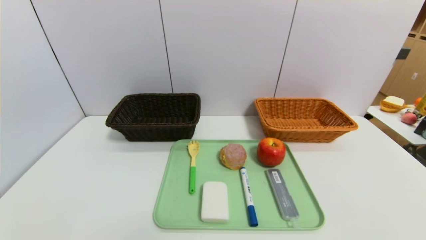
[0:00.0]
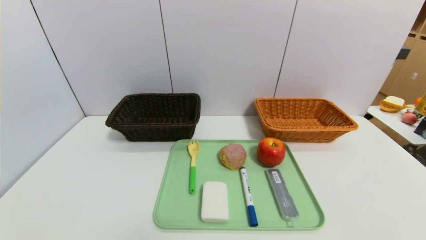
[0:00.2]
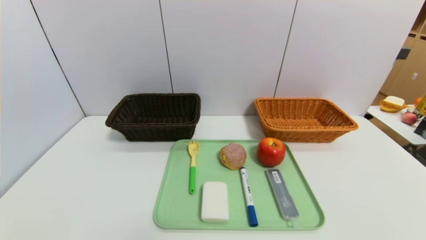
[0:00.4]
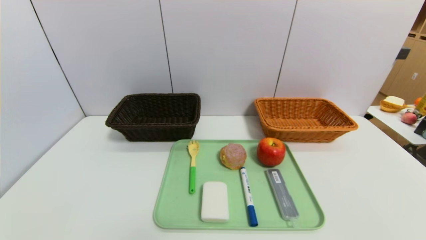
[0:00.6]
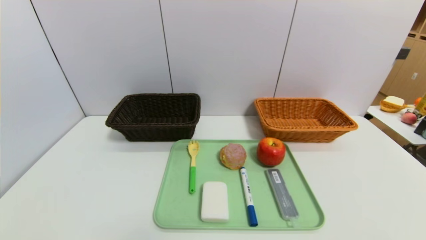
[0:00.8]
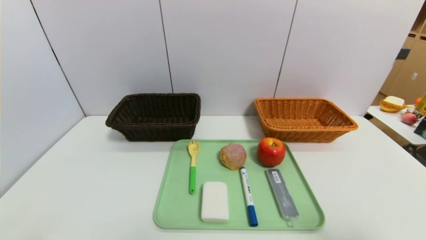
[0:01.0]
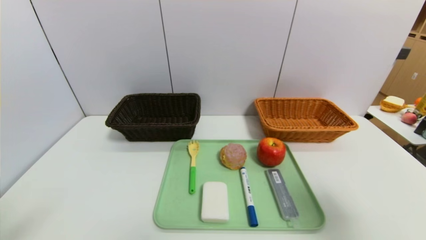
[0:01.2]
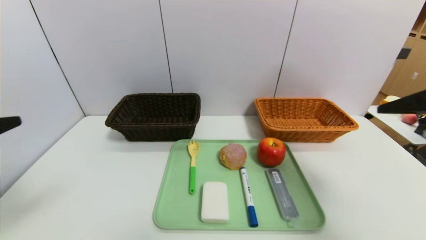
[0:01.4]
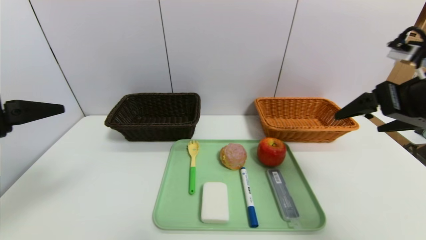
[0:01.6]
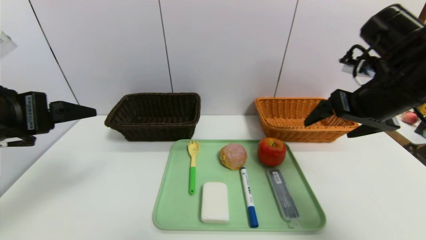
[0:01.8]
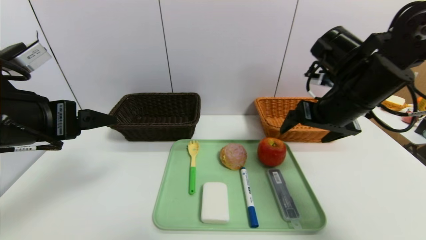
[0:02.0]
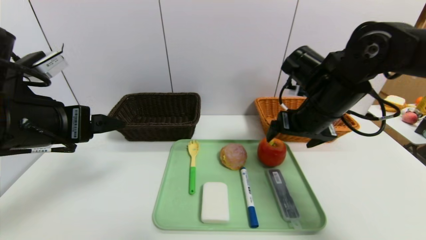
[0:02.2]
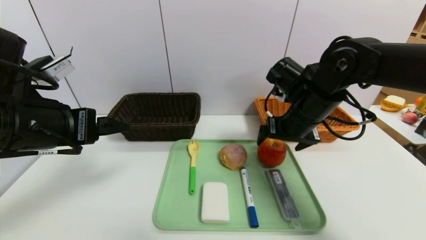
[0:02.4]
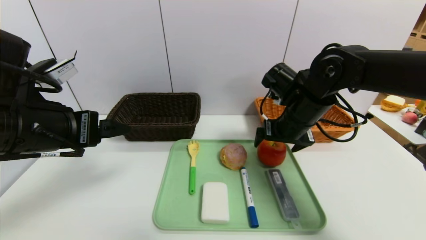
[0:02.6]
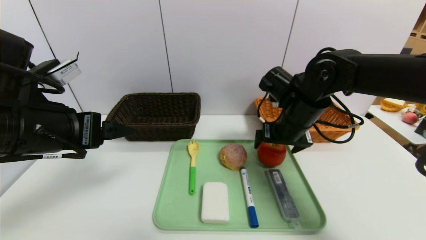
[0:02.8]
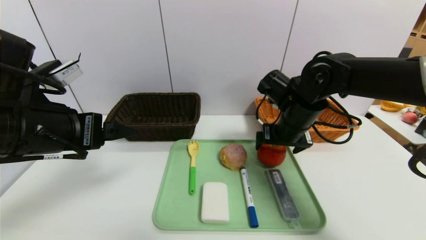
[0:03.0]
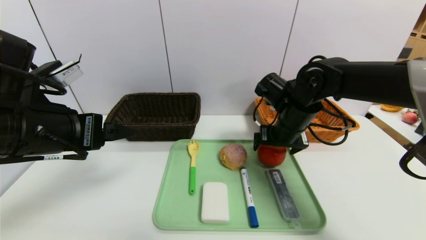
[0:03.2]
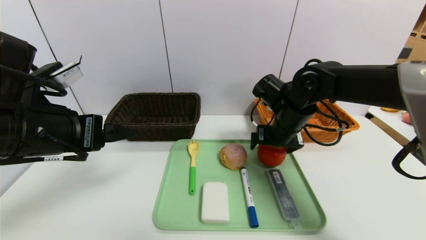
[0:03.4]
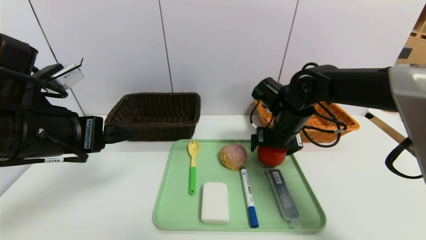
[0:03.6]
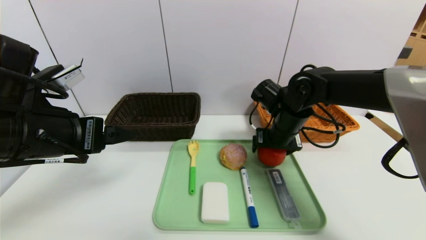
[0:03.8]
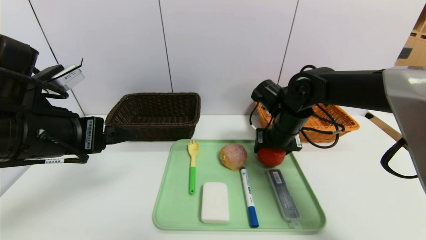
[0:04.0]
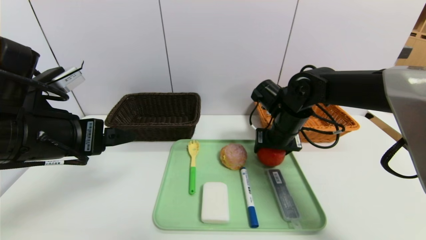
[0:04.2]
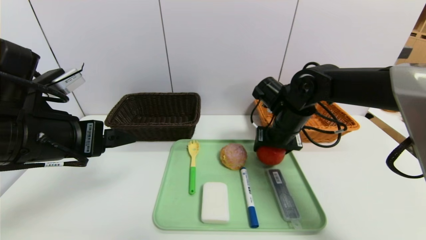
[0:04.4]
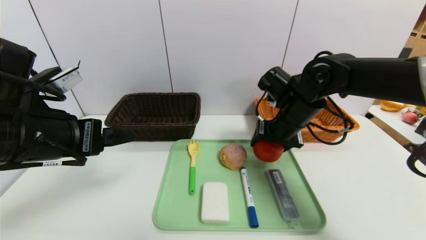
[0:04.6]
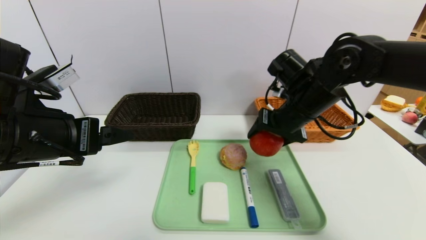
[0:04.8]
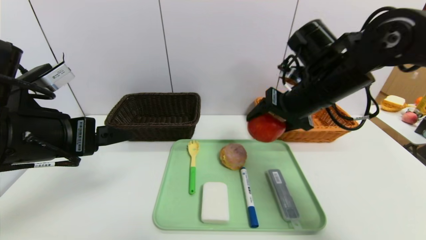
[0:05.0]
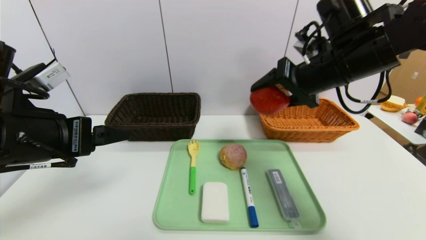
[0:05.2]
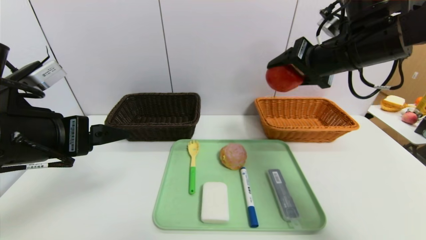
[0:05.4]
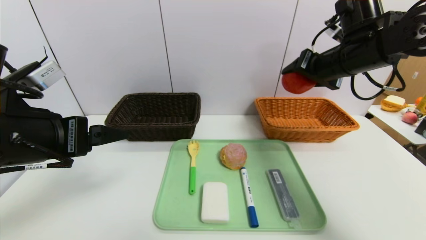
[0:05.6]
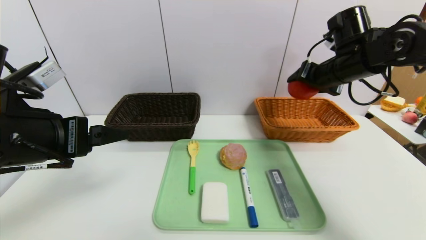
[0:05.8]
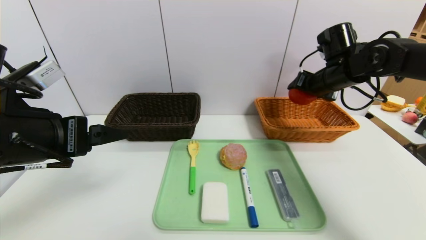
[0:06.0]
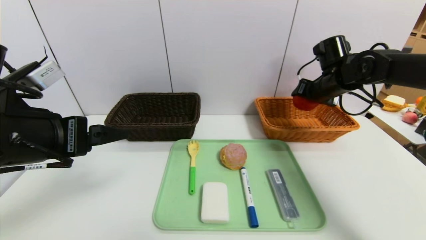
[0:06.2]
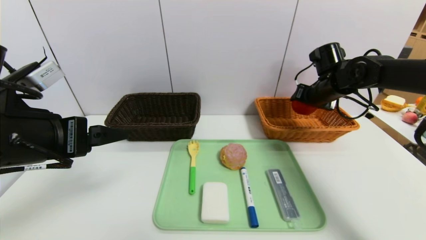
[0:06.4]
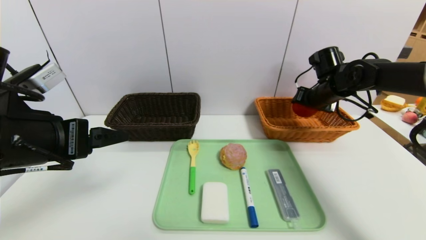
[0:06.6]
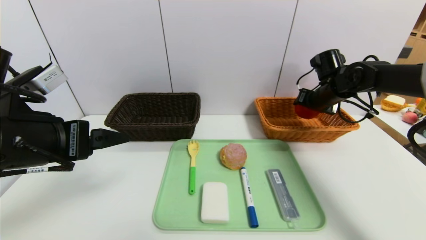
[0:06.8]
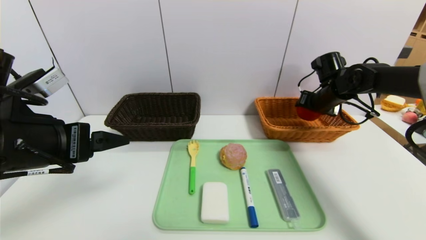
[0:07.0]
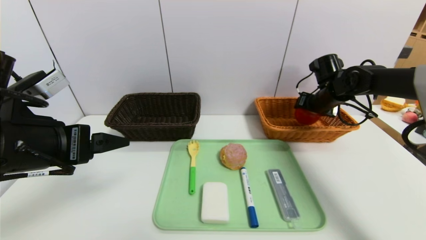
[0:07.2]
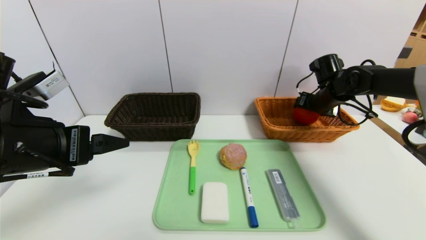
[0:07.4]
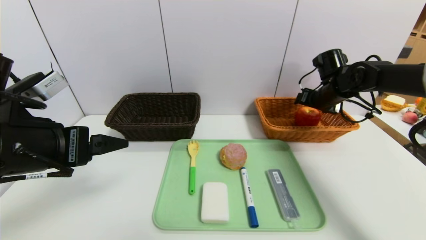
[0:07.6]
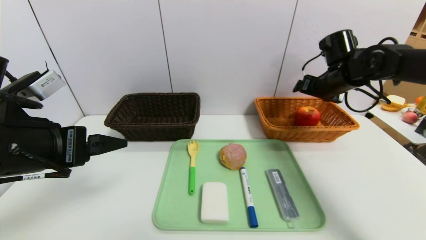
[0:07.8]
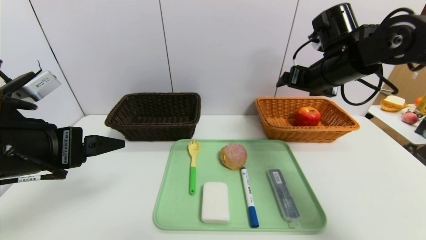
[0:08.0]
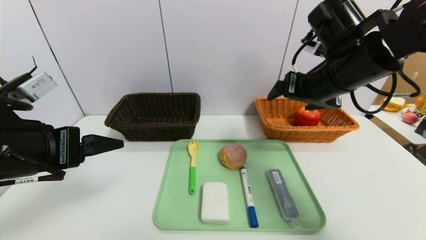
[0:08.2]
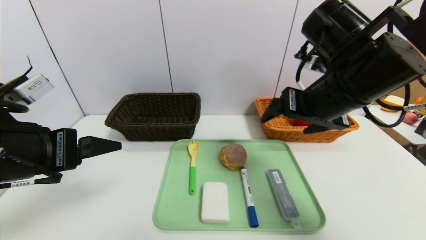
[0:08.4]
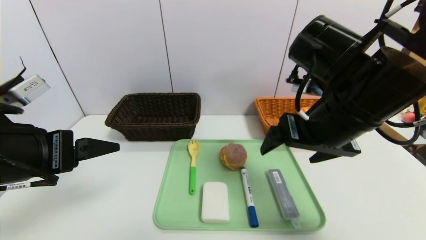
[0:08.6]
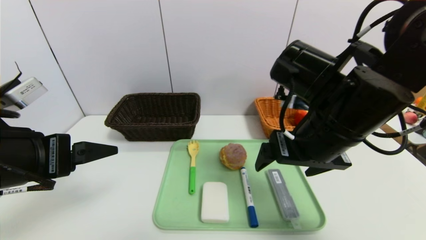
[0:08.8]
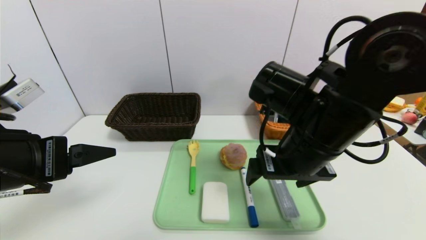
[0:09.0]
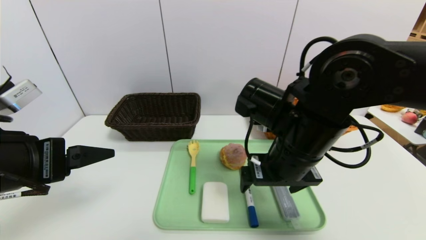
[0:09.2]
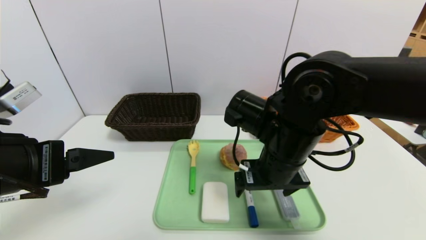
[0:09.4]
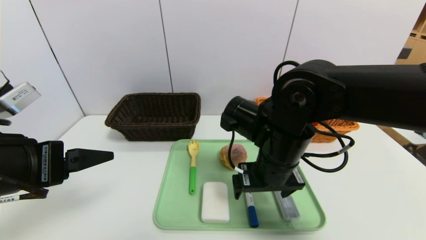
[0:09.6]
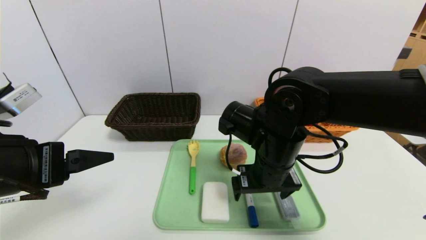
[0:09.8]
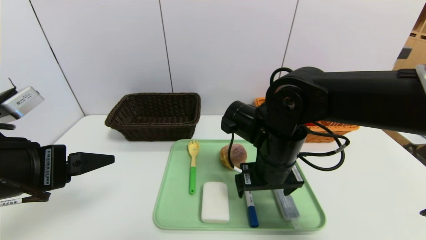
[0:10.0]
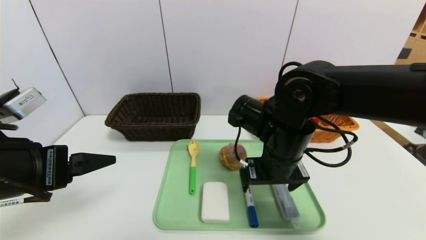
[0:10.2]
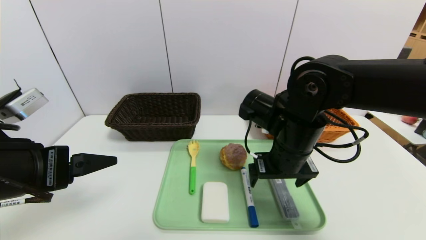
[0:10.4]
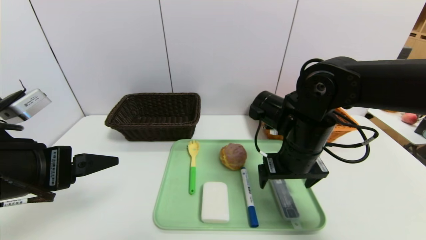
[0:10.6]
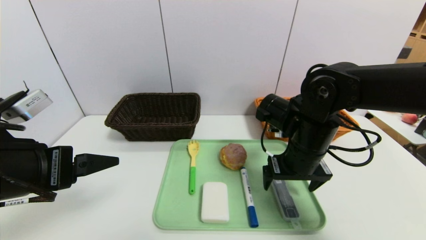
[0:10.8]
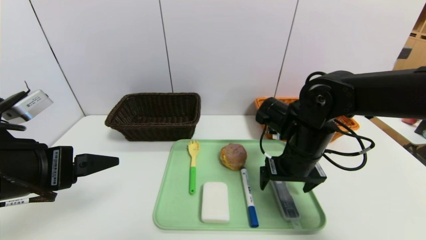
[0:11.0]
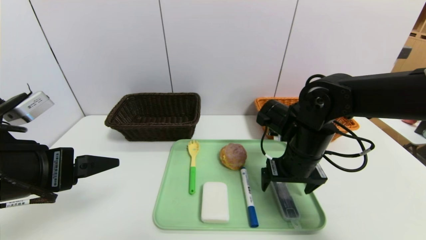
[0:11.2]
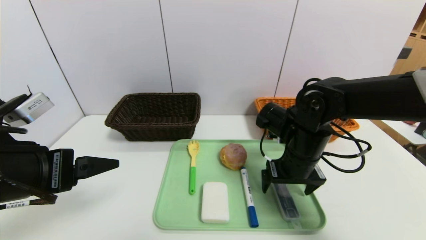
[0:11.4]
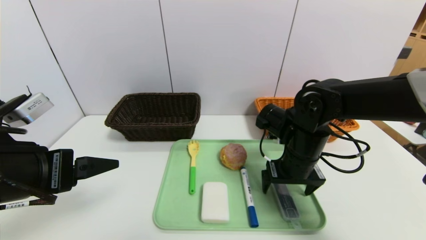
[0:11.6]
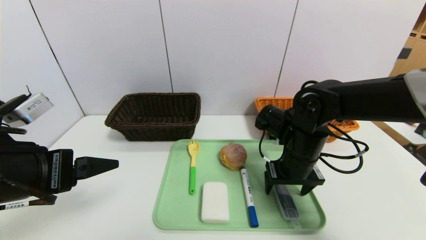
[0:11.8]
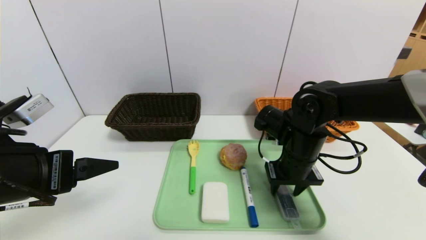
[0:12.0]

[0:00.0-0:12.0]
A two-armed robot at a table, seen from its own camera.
Task of the whole recording: place the food in the right basket with the right gripper, and place the non food items in the left basket with the left gripper.
Step, 0:00.0 to 0:08.0: Grasp the apple and put it in the right basket.
0:00.0 to 0:01.6: Both grippers travel together upward and forward, roughly 30 cm.
0:01.6 to 0:03.0: The left gripper travels forward and to the right by approximately 10 cm, while the right gripper shifts some 20 cm to the left, forward and downward.
0:03.0 to 0:04.4: The right gripper closes its fingers.
0:04.4 to 0:06.0: The right gripper goes approximately 15 cm to the right and upward.
0:06.0 to 0:07.6: The right gripper travels downward by some 5 cm.
0:07.6 to 0:09.0: The right gripper heads backward and to the left, covering about 30 cm.
0:09.0 to 0:10.4: The right gripper travels downward by approximately 5 cm.
0:10.4 to 0:12.0: The right gripper shifts by some 5 cm, and closes its fingers.

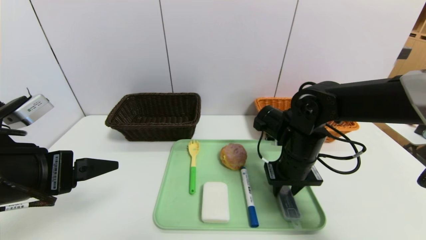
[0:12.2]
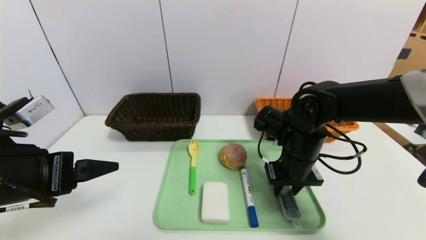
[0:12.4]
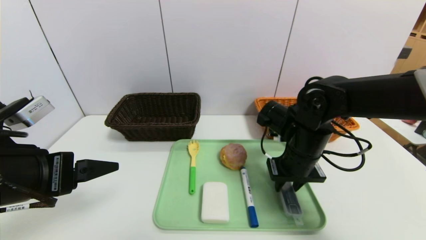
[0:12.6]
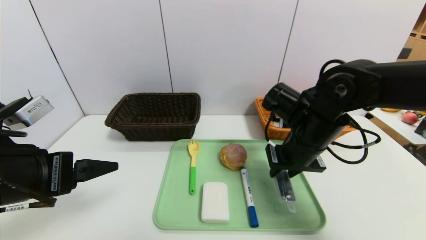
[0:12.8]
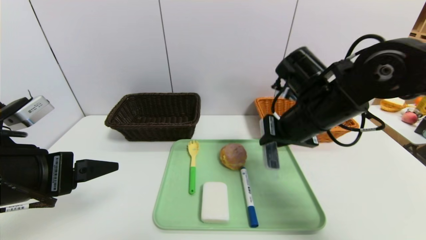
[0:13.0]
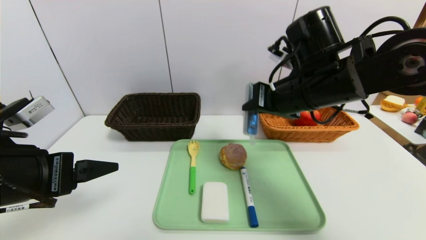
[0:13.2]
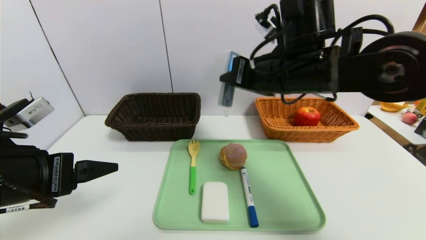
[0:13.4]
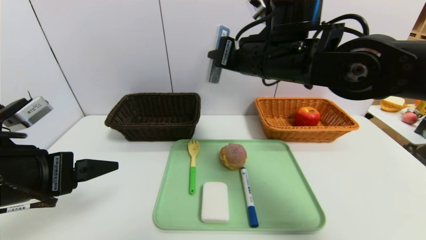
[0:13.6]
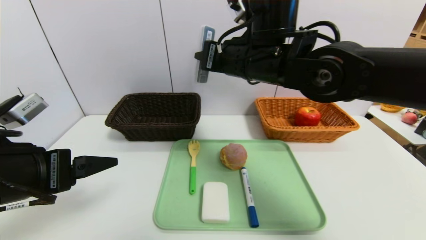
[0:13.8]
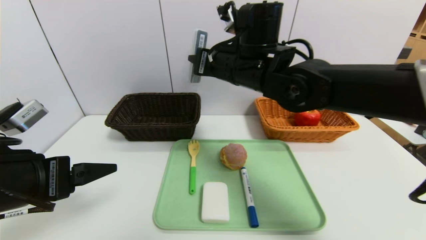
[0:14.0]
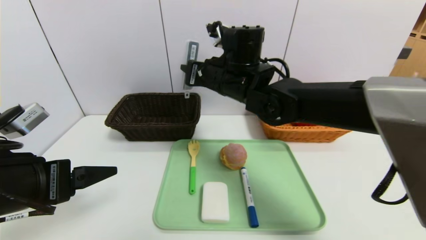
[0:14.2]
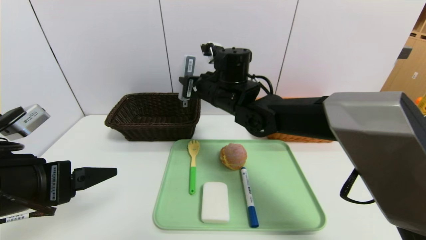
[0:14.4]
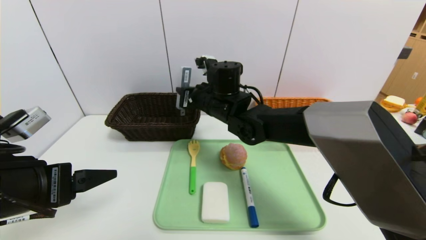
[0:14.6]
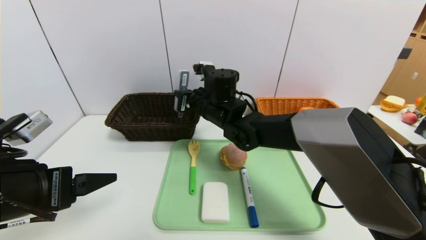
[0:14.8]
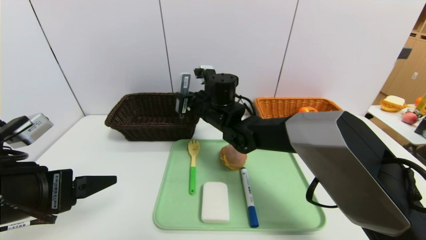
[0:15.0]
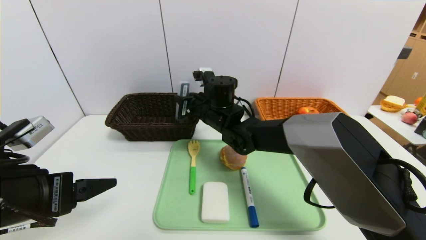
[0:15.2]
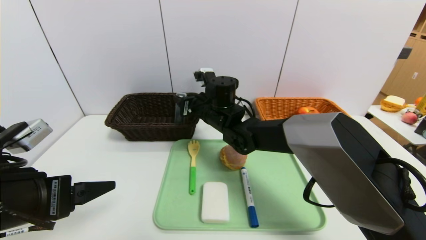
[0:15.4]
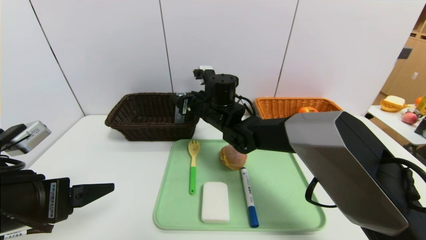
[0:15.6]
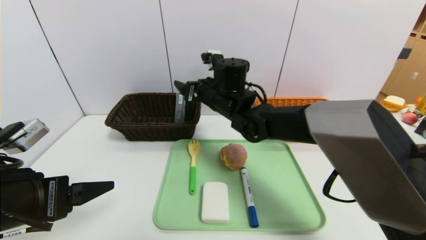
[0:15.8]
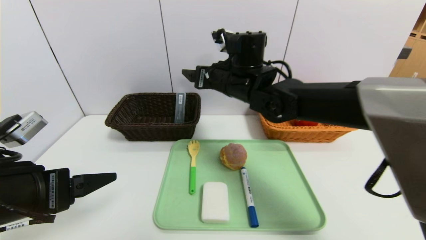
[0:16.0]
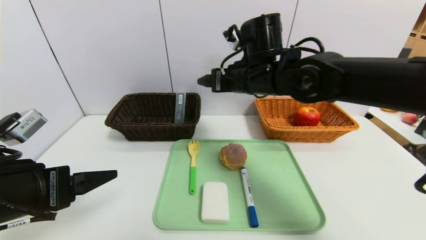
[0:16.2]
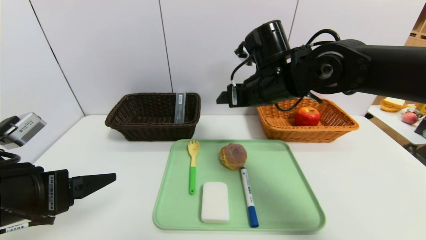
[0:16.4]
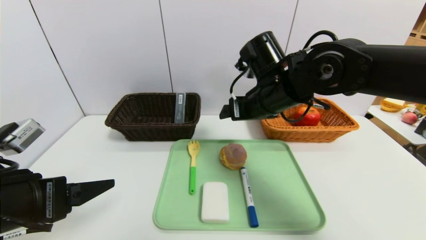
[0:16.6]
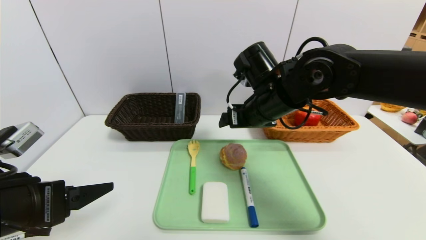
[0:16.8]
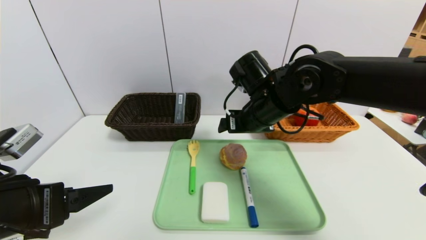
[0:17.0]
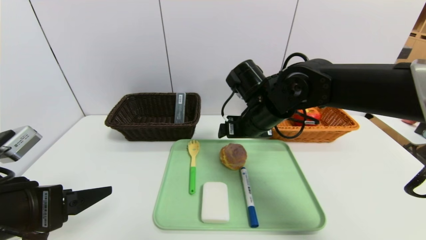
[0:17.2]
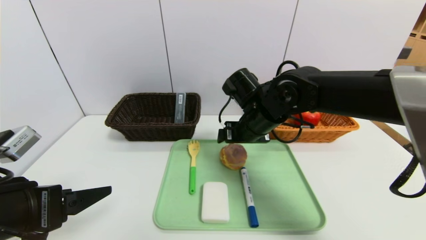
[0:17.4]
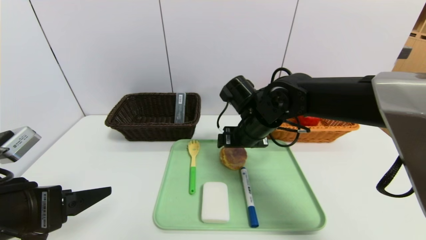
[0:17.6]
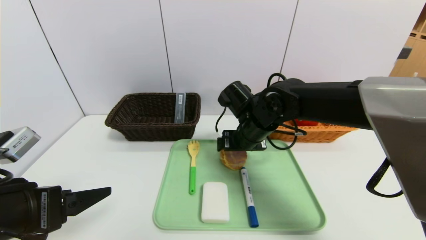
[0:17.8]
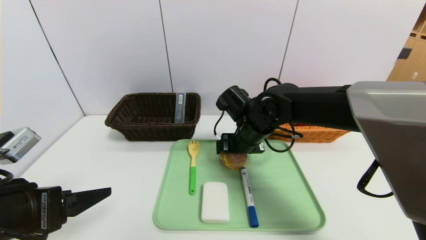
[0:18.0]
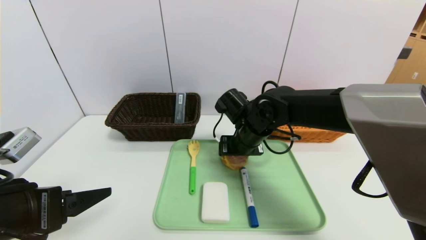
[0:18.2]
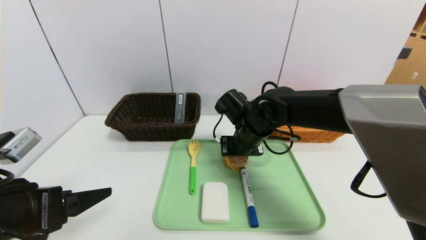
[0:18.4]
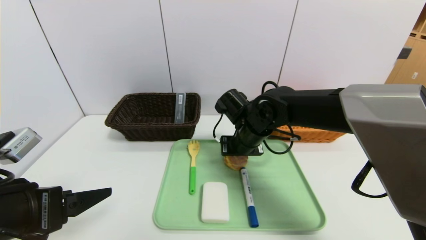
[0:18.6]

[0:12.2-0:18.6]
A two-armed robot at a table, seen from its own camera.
Task of the whole recording: place the food in the right basket with the right gripper, and place the non food items in the left basket with the left gripper.
0:12.2 to 0:13.8: The right gripper is displaced upward and to the left by about 20 cm.
0:13.8 to 0:15.4: The right gripper goes approximately 15 cm downward, forward and to the left, and opens.
0:15.4 to 0:17.0: The right gripper travels to the right, backward and upward by about 15 cm, and opens.
0:17.0 to 0:18.6: The right gripper moves downward, roughly 5 cm, and closes its fingers.
